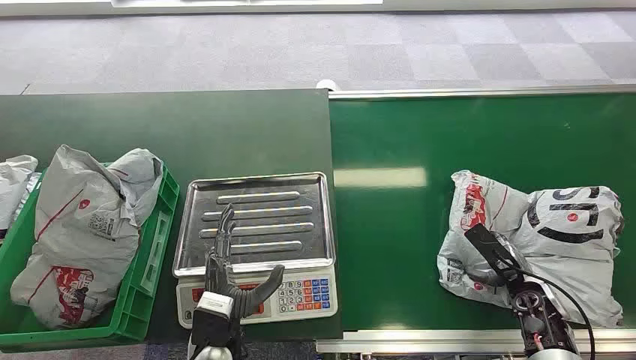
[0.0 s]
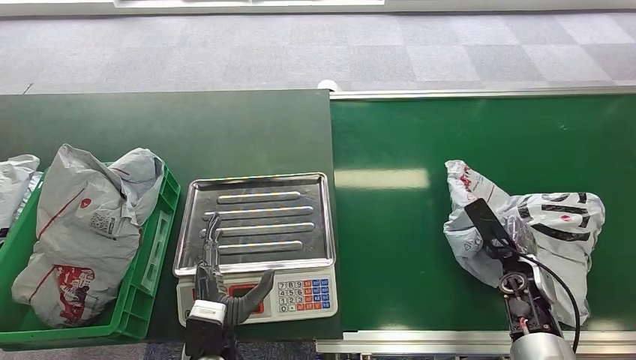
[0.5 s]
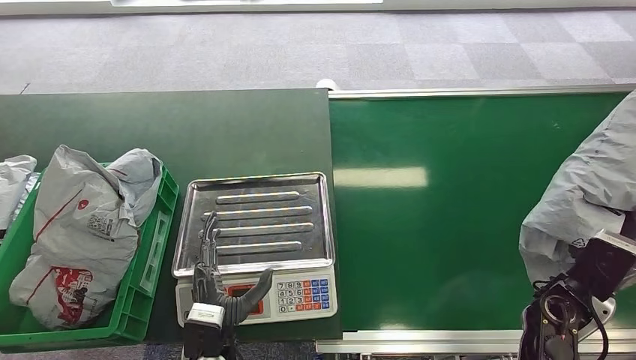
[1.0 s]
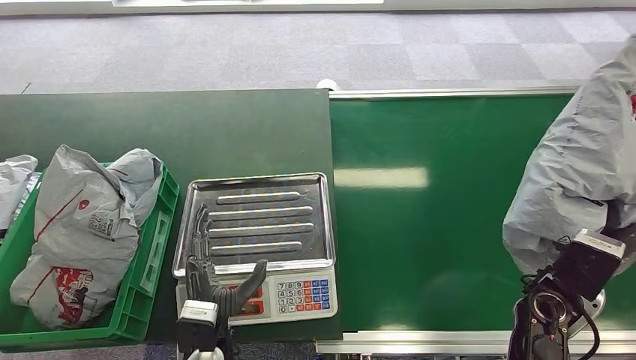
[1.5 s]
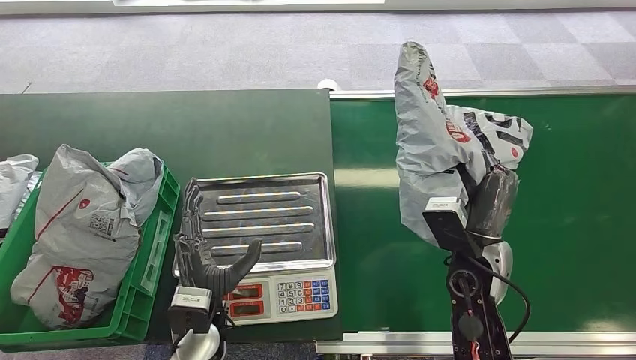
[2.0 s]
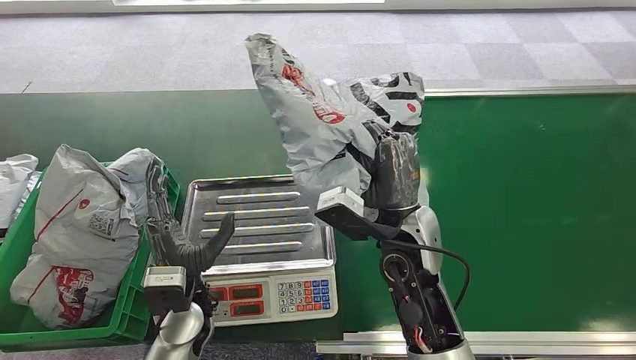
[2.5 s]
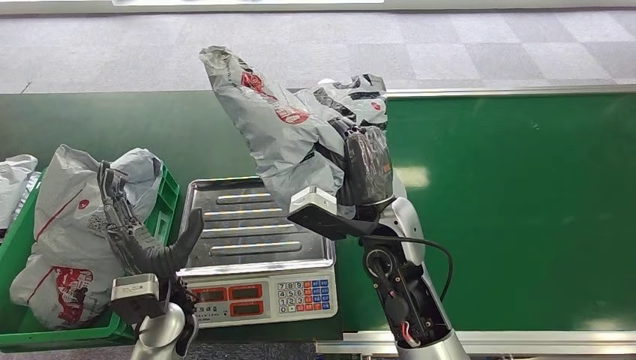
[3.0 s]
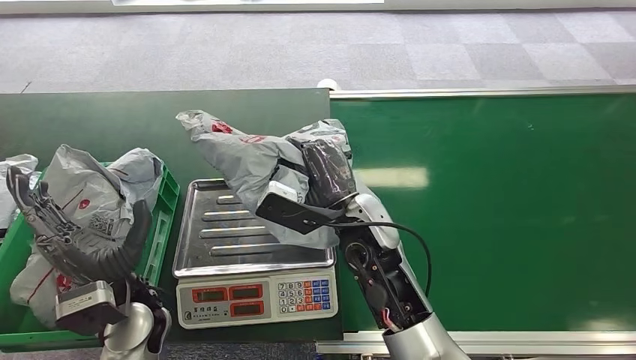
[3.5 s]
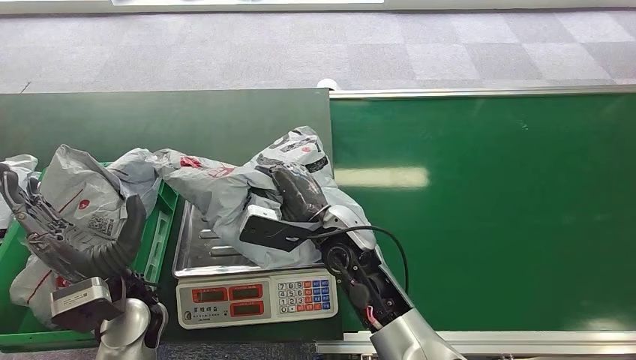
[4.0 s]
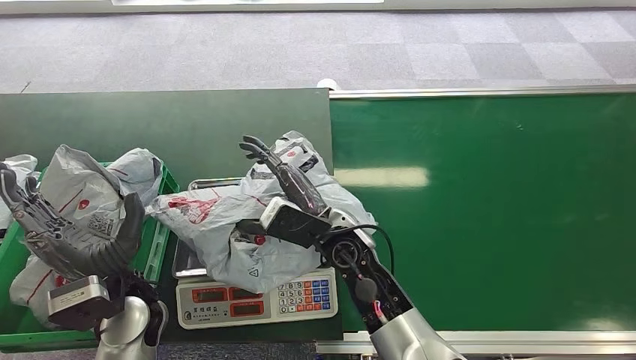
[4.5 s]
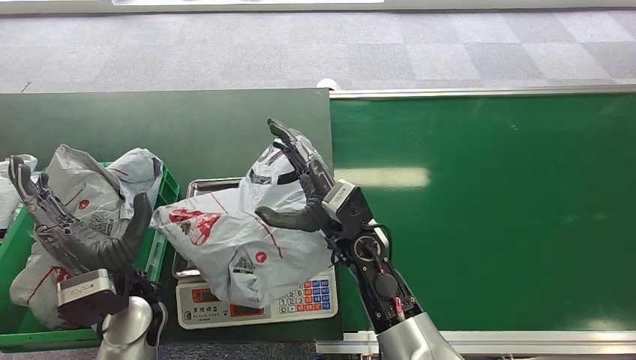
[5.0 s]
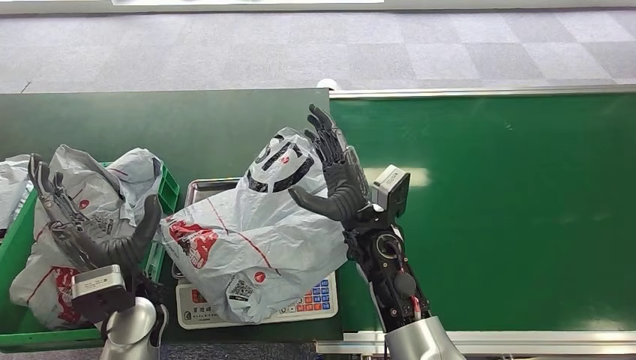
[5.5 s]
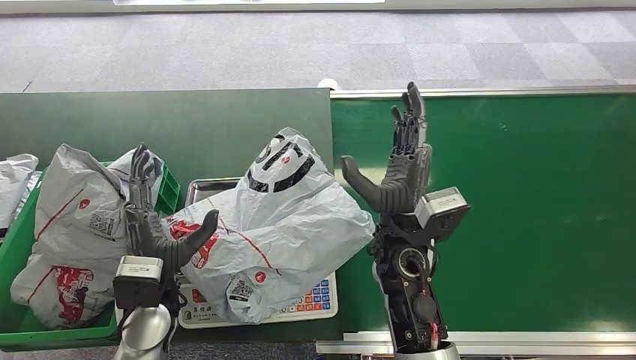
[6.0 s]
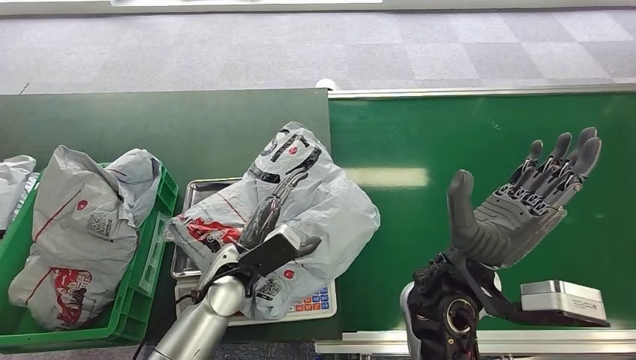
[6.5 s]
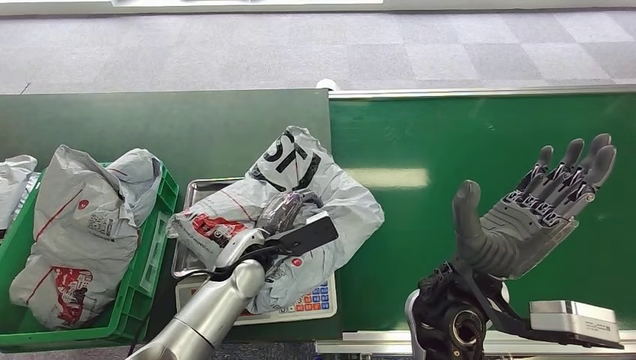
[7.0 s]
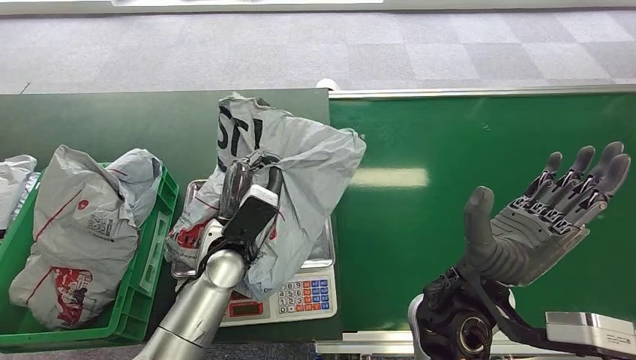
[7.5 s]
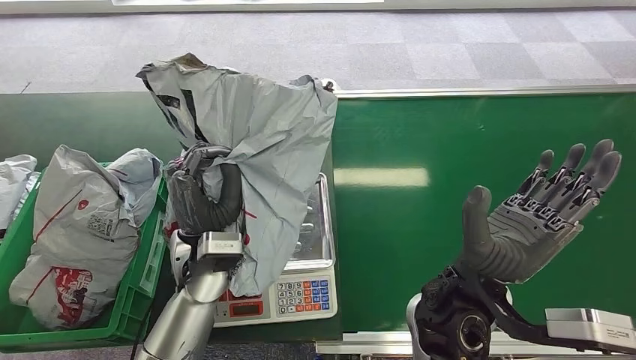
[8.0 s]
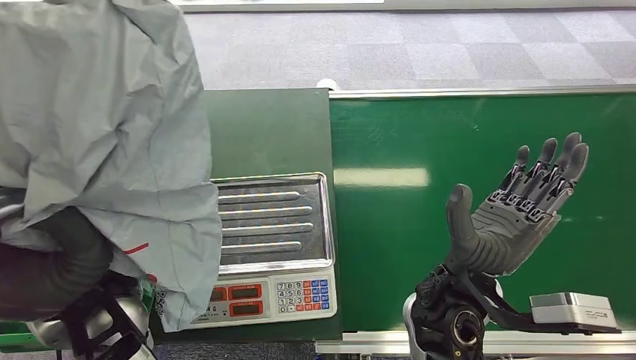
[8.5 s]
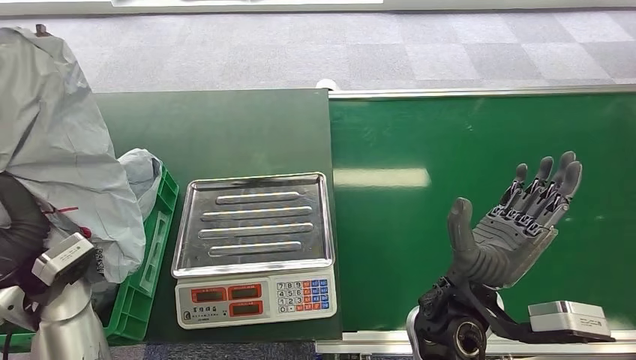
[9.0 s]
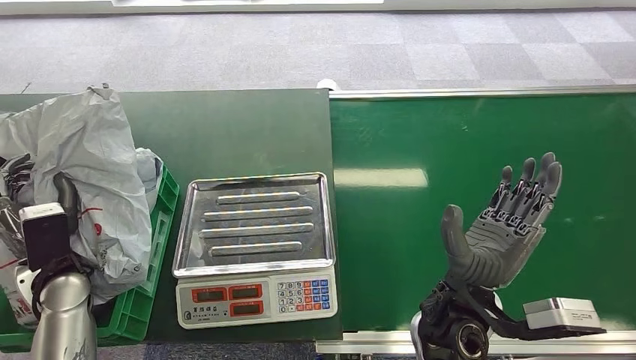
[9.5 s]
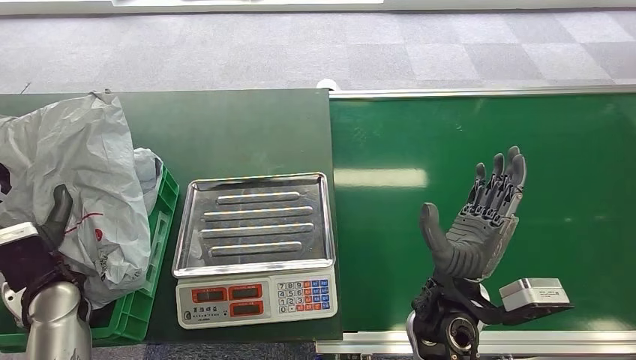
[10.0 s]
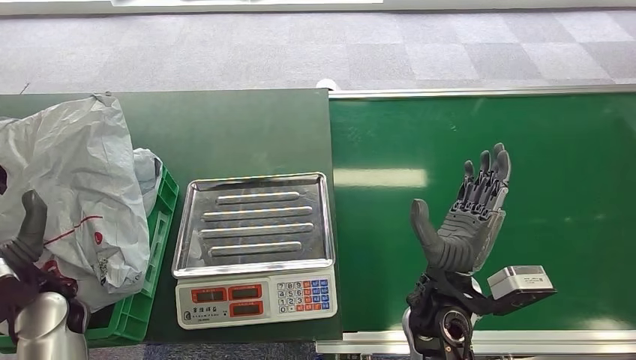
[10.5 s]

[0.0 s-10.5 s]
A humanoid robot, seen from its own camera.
Step, 0.0 to 1.0 s: Pick up the package from the conveyor belt.
Step, 2.5 to 4.5 s: Place the package onto the inbound machine.
Step, 7.5 to 8.0 s: Pick up the package from the inbound machine.
Step, 9.0 to 10.5 s: Place the package into the parcel locker.

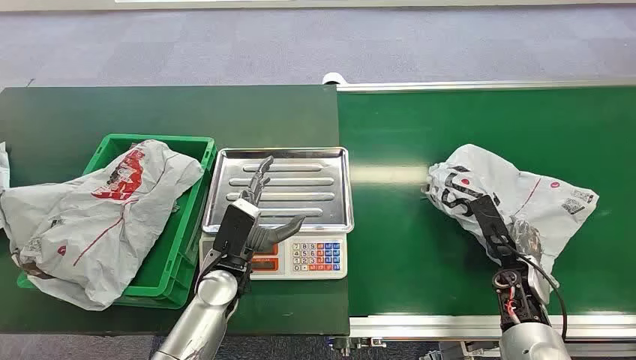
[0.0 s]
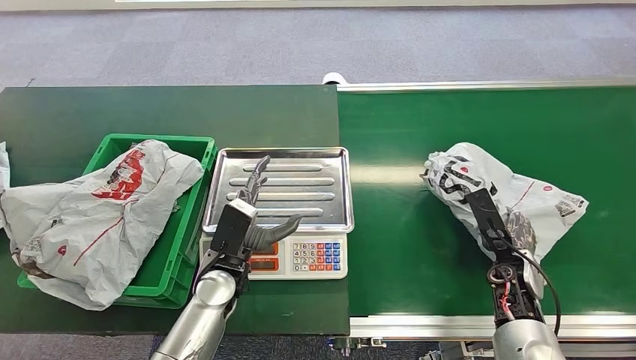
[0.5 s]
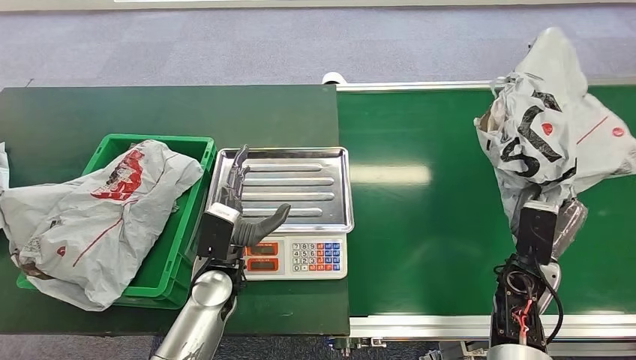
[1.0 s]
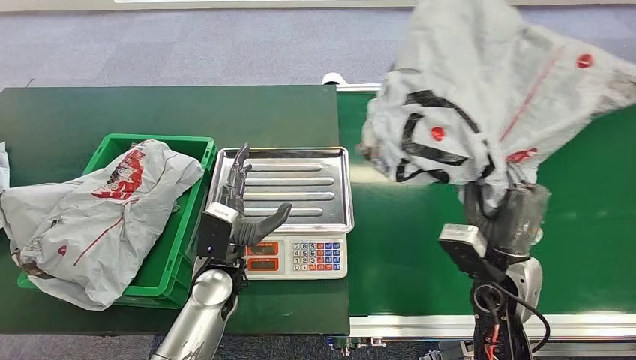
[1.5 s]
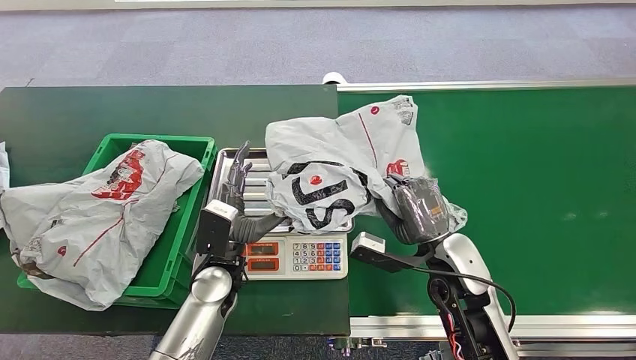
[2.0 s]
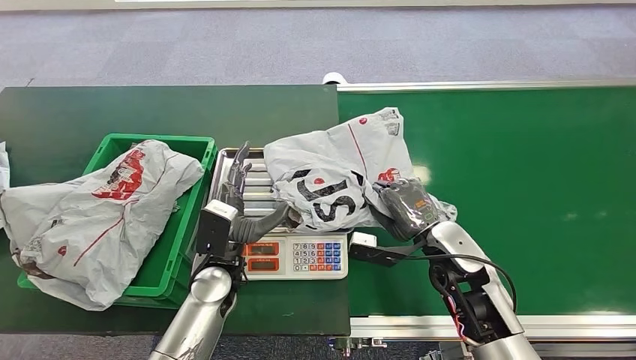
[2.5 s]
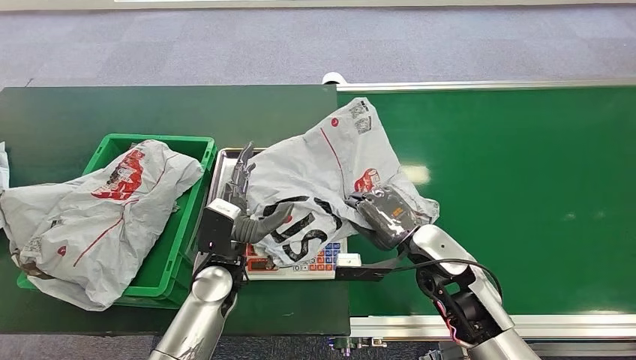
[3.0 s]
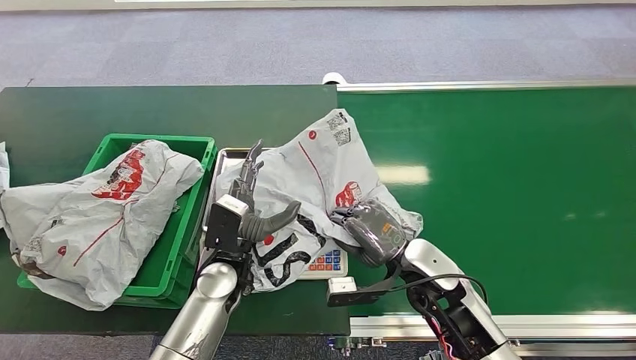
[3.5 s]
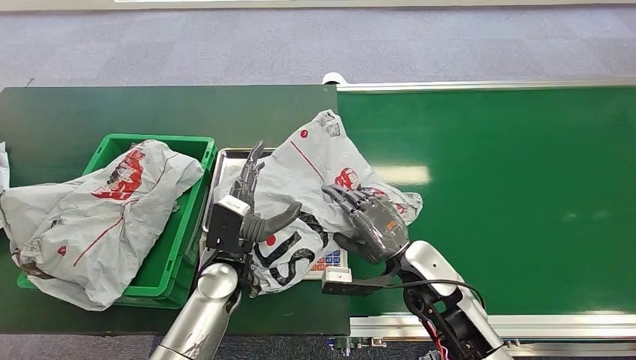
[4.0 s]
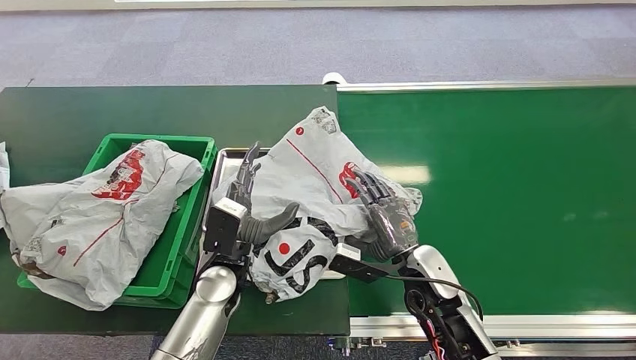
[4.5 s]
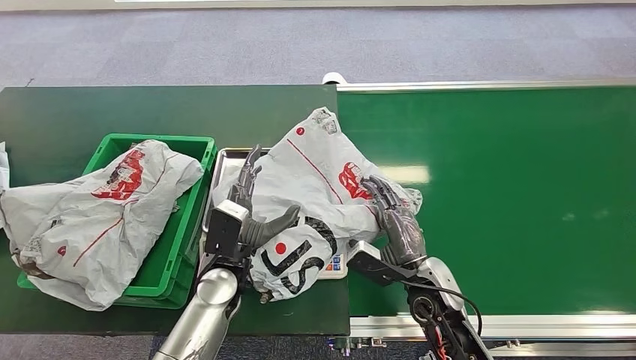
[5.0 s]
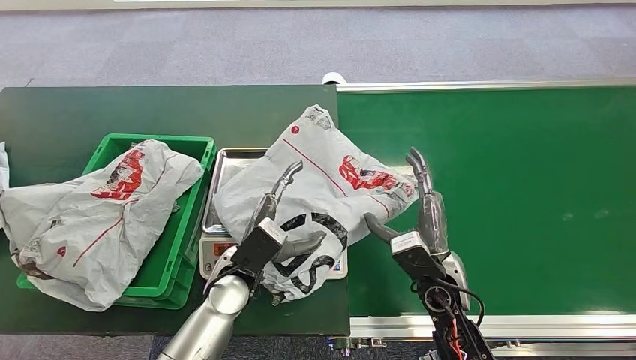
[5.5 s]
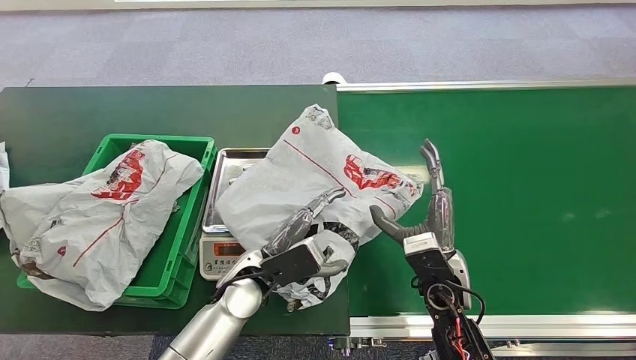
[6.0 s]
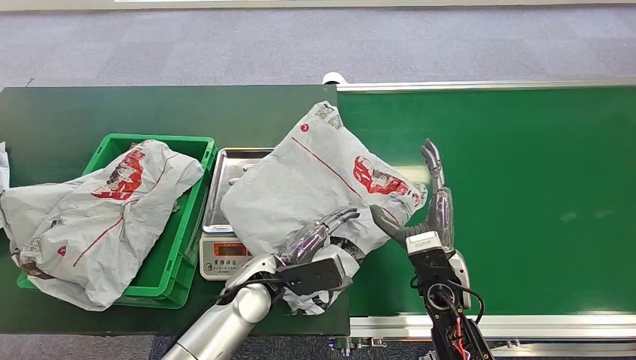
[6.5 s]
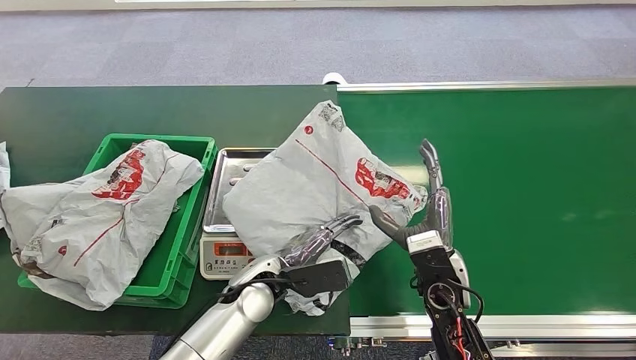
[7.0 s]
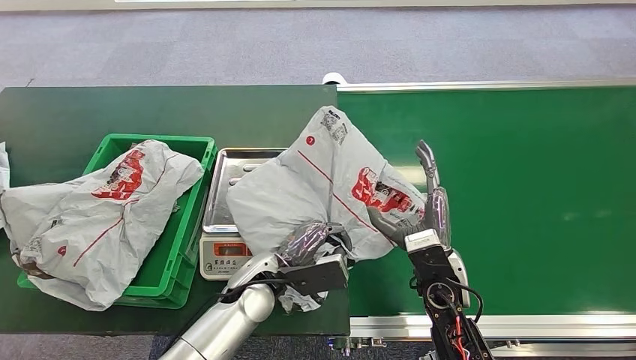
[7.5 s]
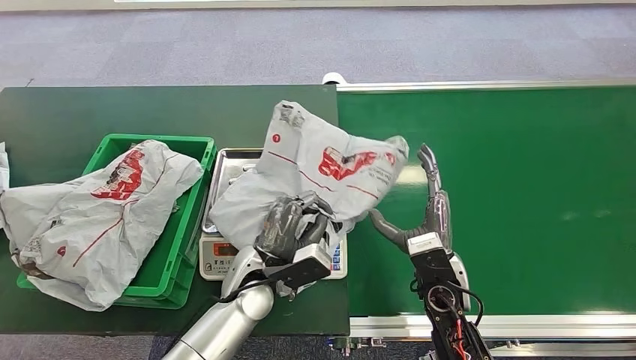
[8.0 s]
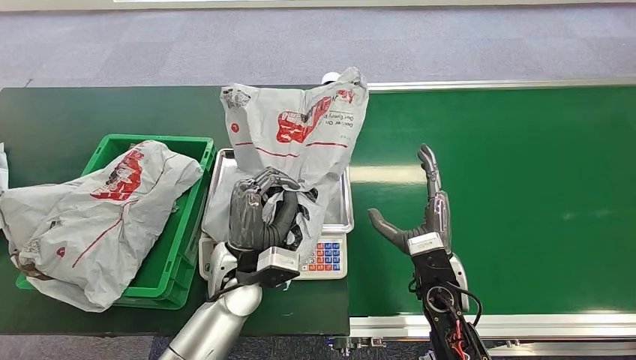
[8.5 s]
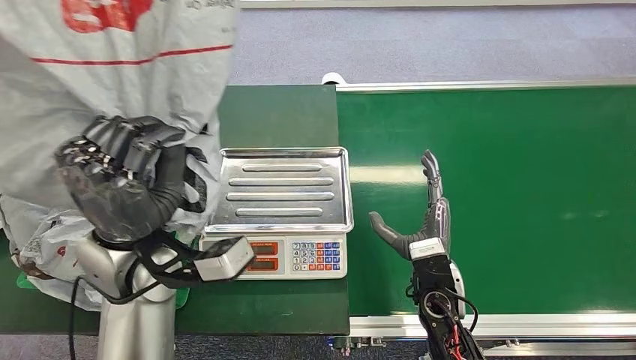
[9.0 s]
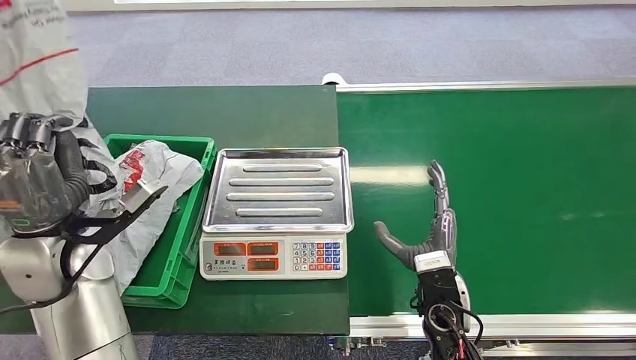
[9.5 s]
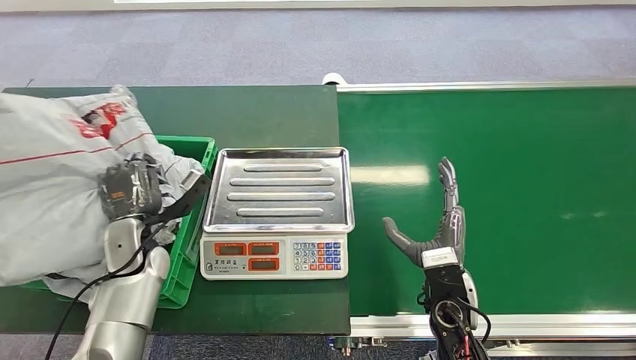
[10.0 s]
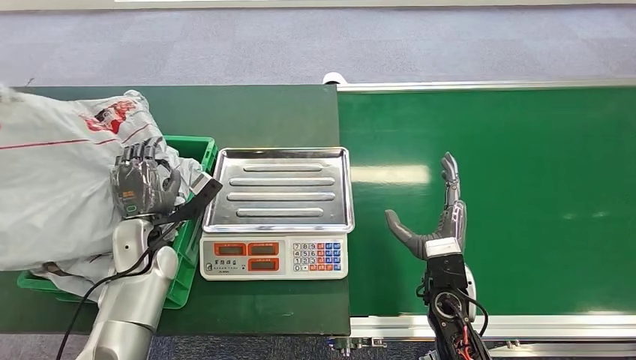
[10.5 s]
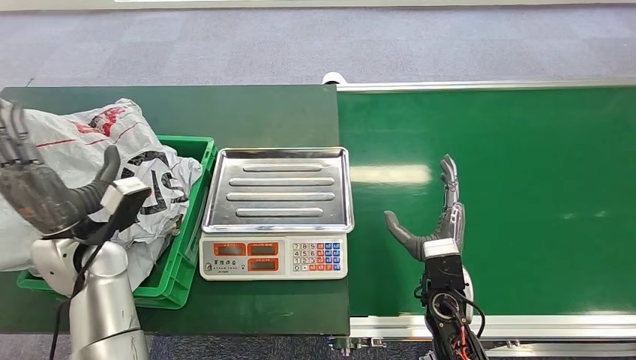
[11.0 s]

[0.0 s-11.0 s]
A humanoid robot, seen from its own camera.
Step, 0.0 to 1.0 s: Pick up the package from the conveyor belt.
Step, 2.0 to 3.5 s: Place the package onto the inbound machine.
Step, 8.0 to 8.5 s: Pick up the package from the inbound machine.
Step, 10.0 to 11.0 s: Place the package into the parcel locker.
